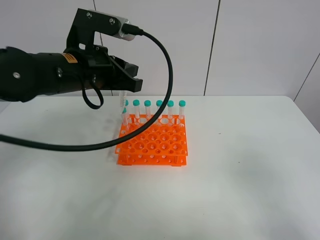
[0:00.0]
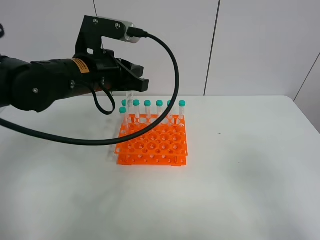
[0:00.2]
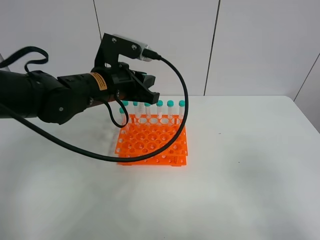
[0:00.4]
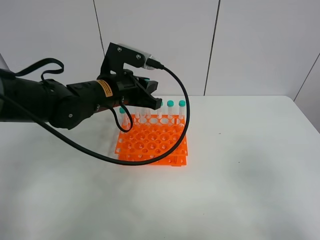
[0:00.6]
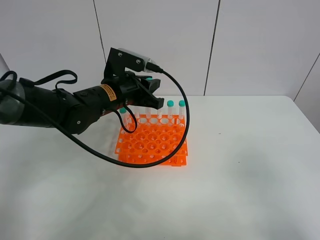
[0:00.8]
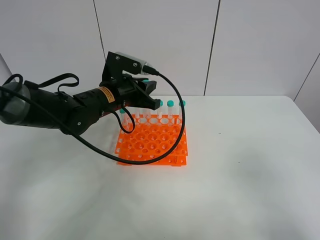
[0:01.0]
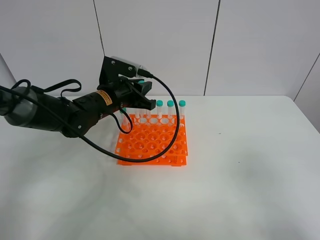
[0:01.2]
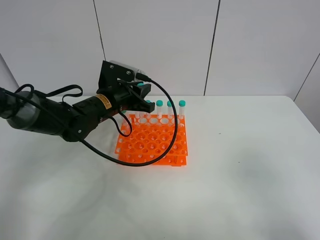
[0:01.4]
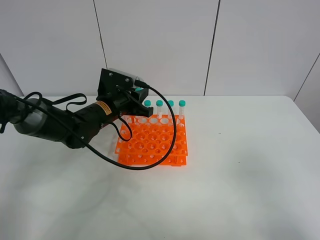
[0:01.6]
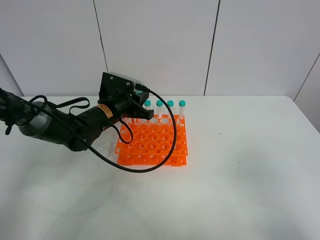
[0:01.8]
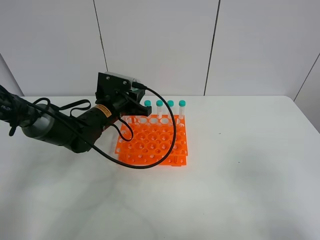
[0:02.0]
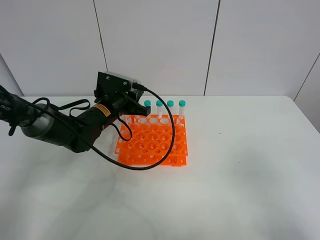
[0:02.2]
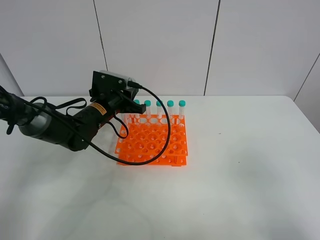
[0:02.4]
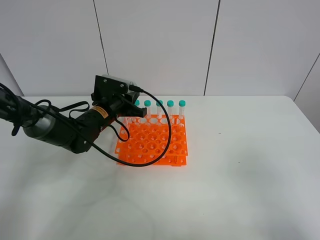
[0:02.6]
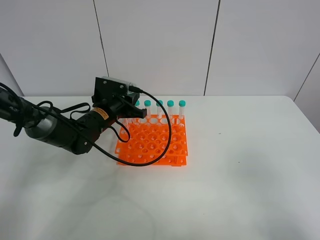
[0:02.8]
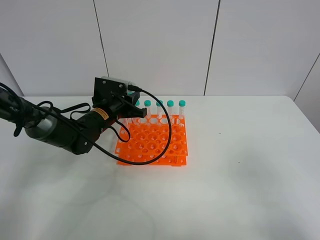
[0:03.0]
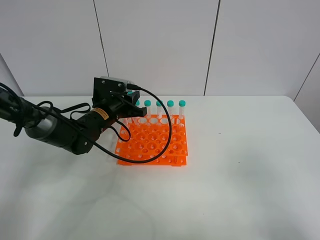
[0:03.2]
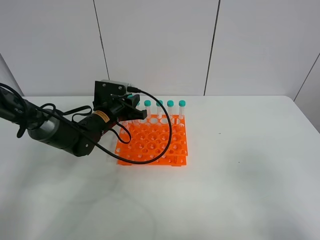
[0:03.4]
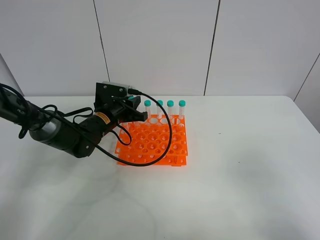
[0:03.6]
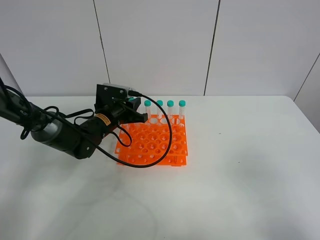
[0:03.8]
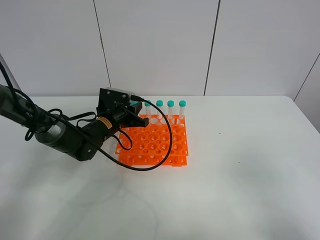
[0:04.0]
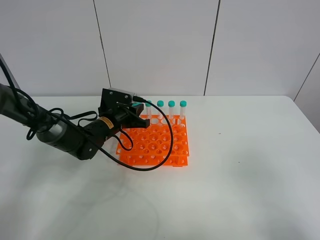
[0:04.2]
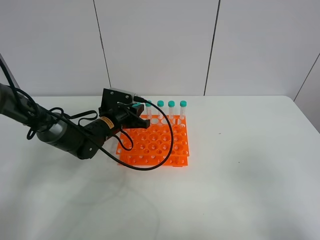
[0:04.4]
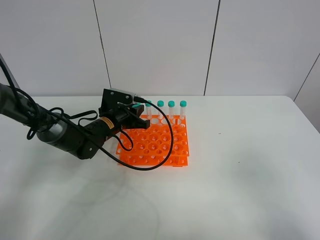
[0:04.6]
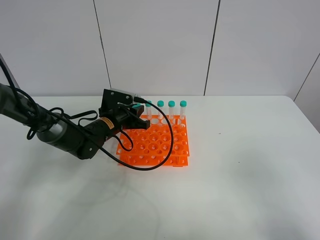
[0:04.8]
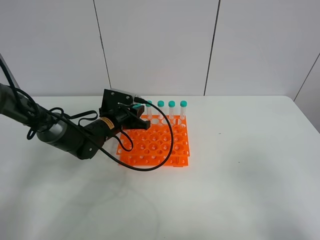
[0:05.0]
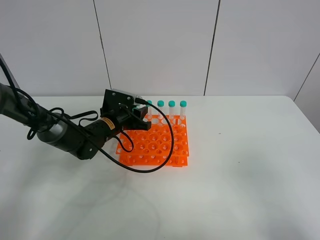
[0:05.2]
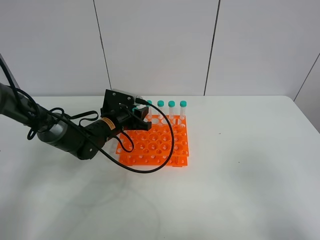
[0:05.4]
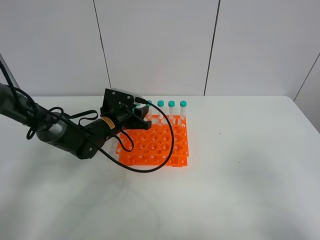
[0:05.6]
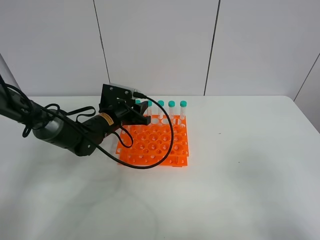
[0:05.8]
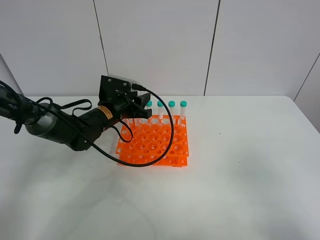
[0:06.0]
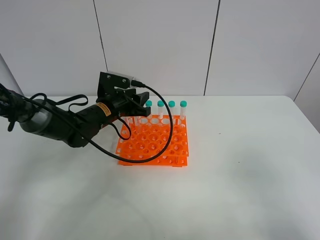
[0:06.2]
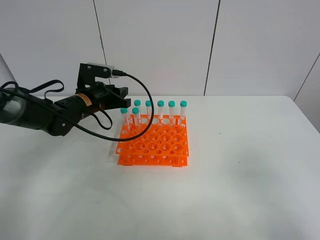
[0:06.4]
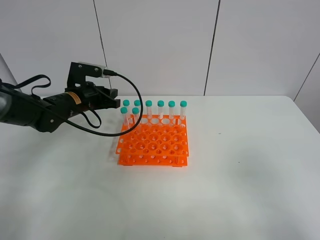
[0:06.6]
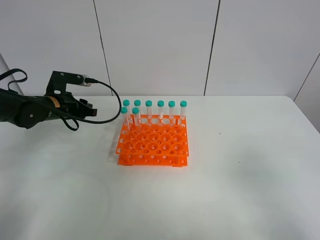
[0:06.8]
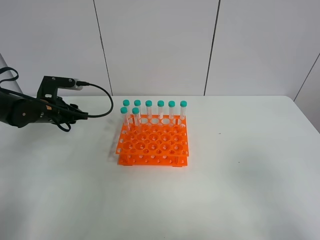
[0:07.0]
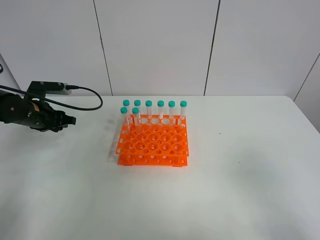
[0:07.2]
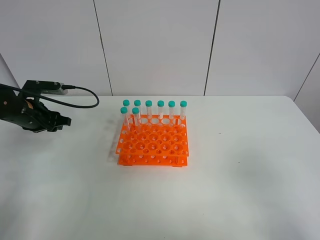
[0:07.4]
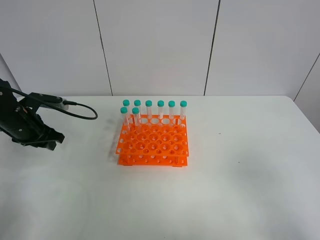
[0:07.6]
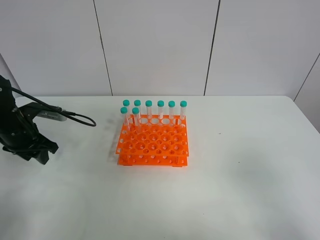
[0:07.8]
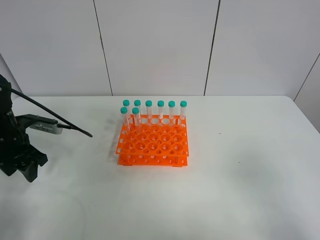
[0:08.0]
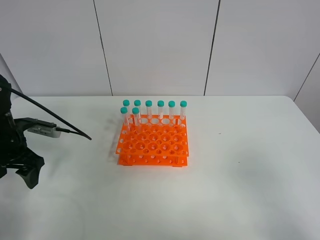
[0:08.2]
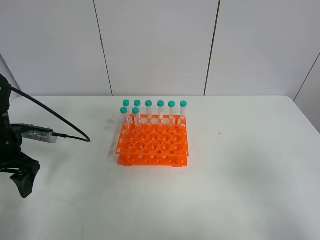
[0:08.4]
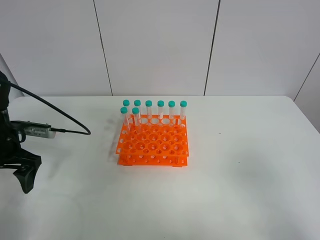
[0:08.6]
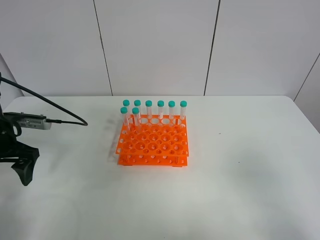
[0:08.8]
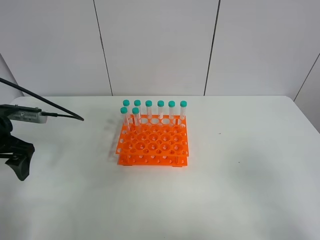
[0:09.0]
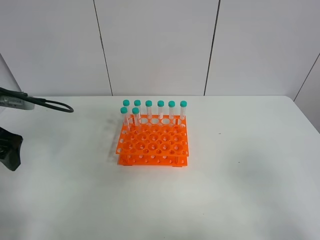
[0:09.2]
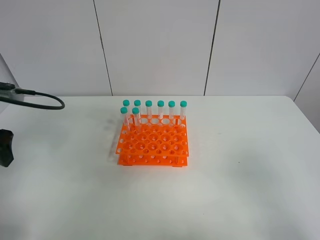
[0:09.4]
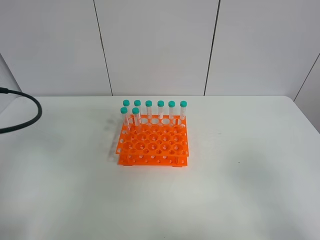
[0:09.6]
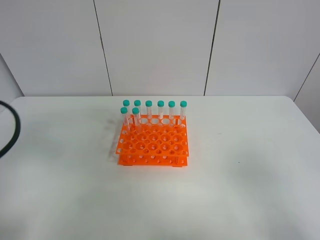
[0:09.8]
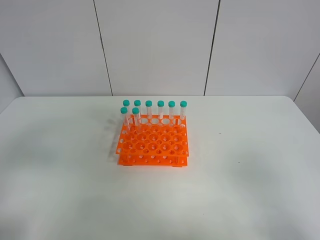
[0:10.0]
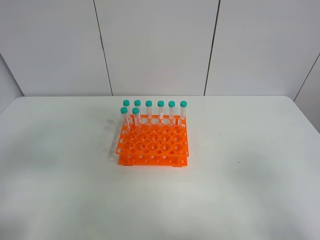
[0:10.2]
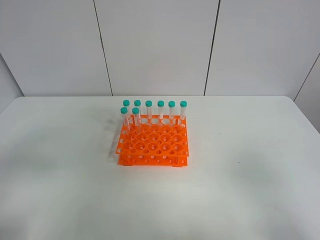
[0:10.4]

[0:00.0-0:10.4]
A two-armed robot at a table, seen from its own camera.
Task of the whole recording: Put the test tube on the table back onto the test tube rack.
Step, 0:00.0 to 0:05.4: Place the test tube on the test tube rack with the left gripper.
0:00.0 to 0:01.4: The left gripper is displaced downward and forward by about 15 cm.
0:01.4 to 0:03.0: There are only small adjustments of the grippers.
0:03.0 to 0:06.0: The grippers stay close to where they were, moving slightly.
0:06.0 to 0:07.4: The left gripper travels to the left by approximately 20 cm.
0:07.4 to 0:09.0: The left gripper shifts about 10 cm backward and upward, and opens its fingers.
0:09.0 to 0:10.4: The left gripper goes approximately 20 cm backward.
